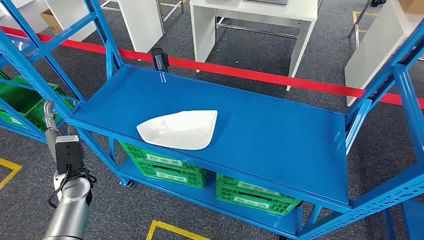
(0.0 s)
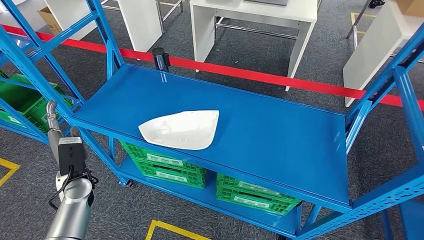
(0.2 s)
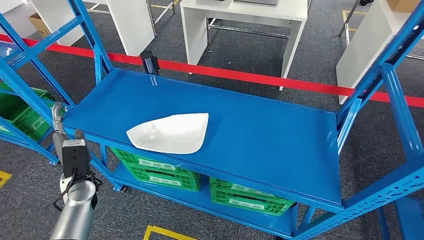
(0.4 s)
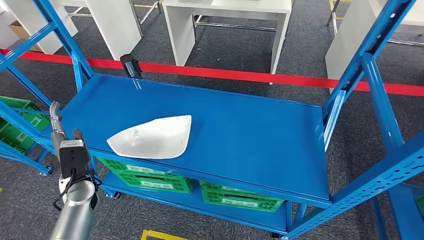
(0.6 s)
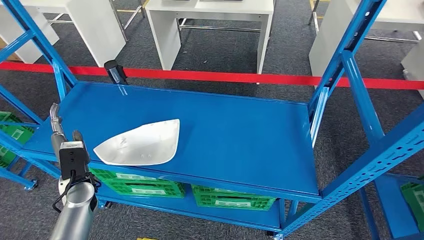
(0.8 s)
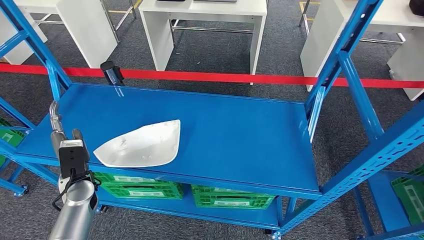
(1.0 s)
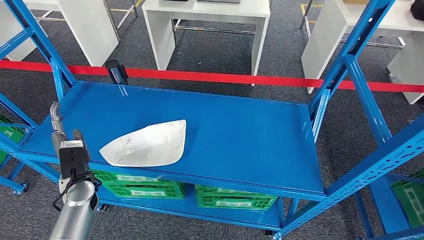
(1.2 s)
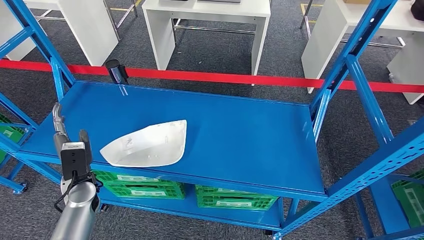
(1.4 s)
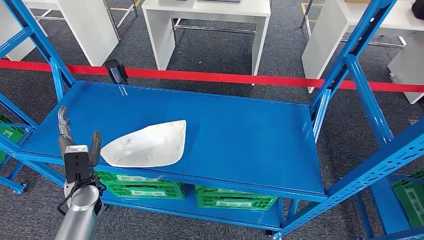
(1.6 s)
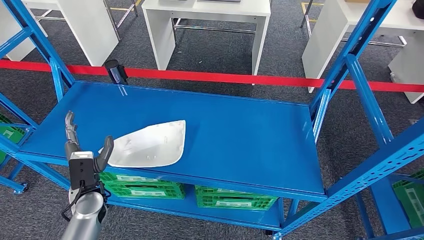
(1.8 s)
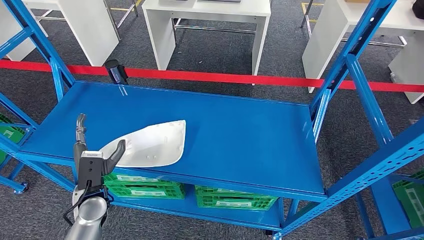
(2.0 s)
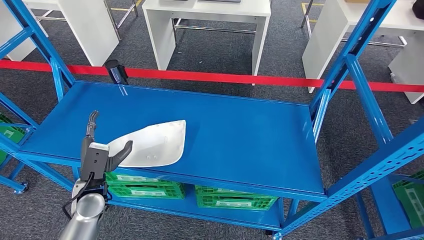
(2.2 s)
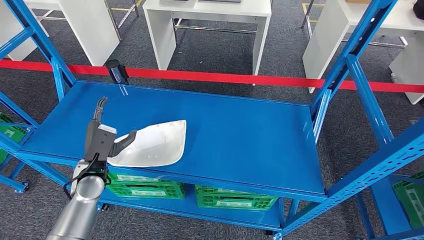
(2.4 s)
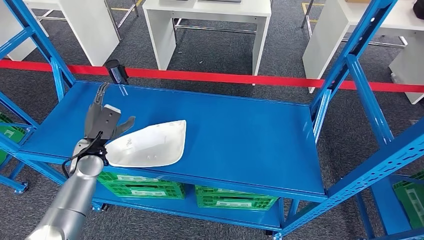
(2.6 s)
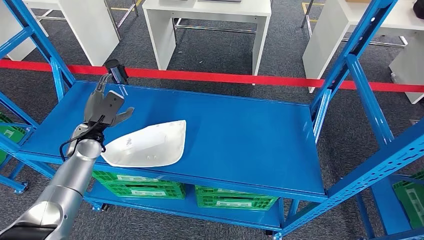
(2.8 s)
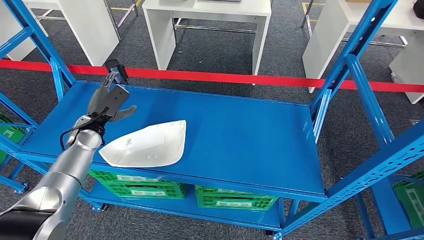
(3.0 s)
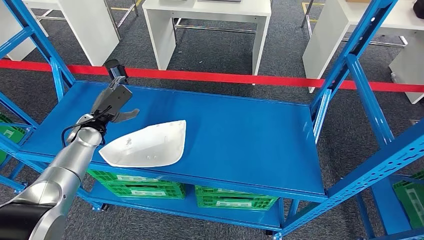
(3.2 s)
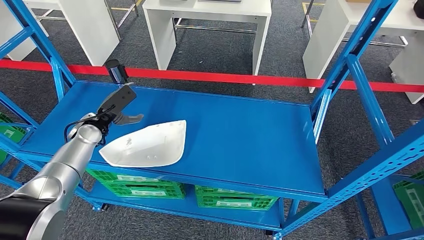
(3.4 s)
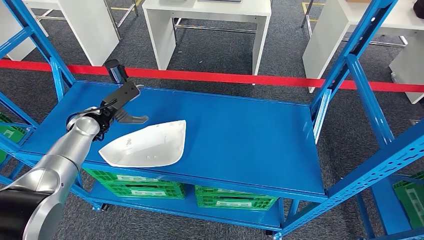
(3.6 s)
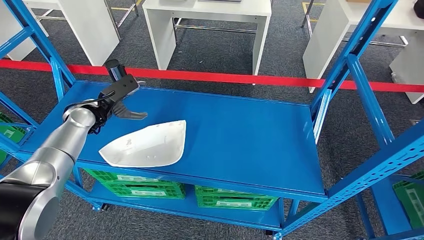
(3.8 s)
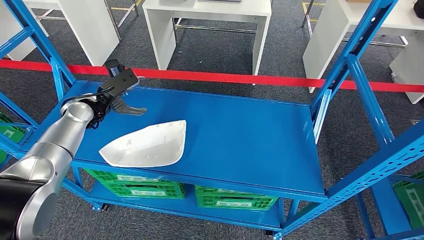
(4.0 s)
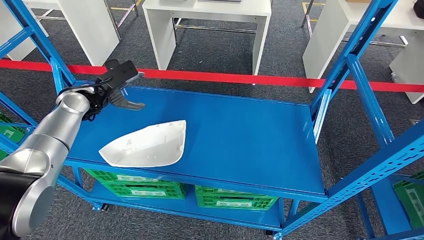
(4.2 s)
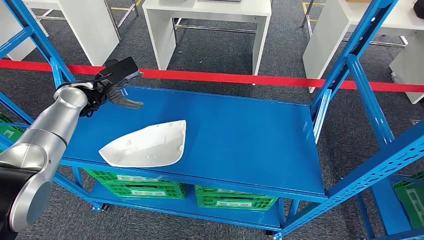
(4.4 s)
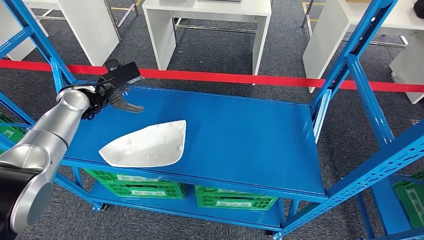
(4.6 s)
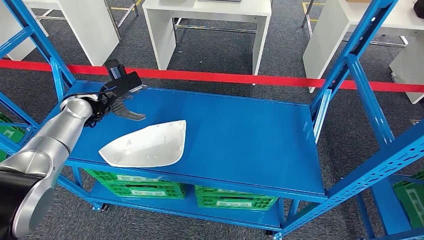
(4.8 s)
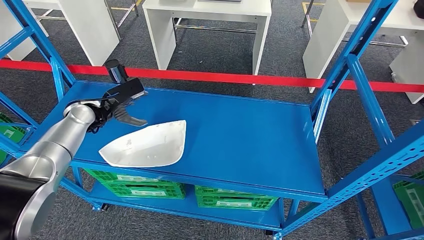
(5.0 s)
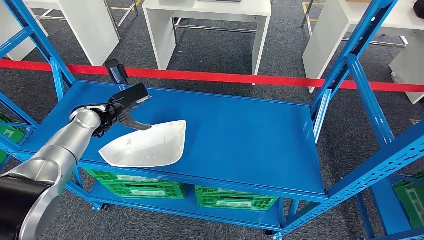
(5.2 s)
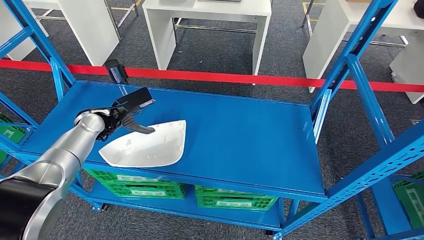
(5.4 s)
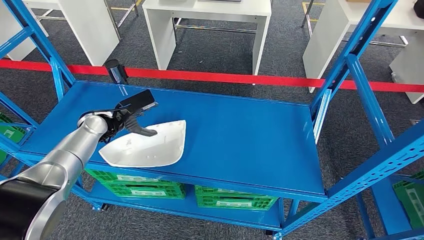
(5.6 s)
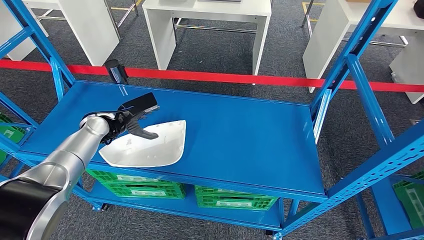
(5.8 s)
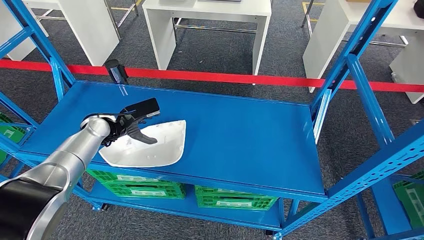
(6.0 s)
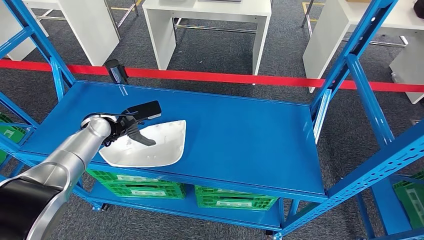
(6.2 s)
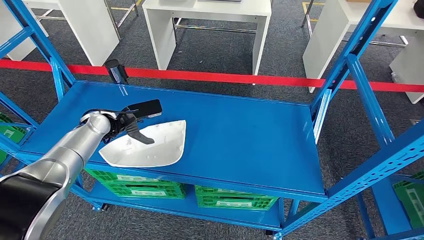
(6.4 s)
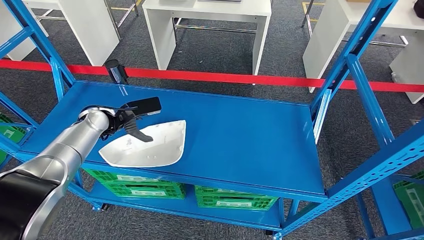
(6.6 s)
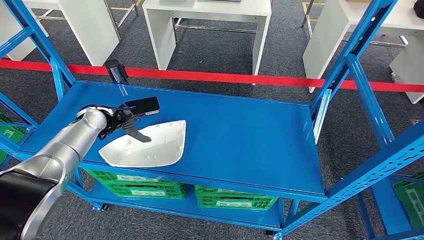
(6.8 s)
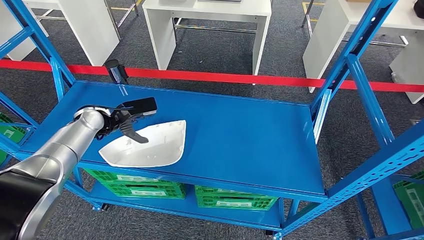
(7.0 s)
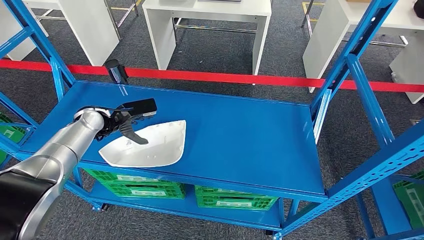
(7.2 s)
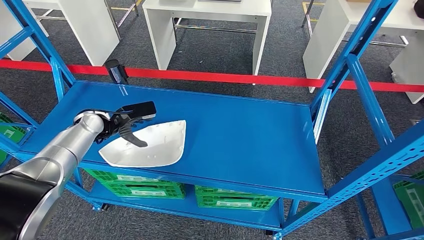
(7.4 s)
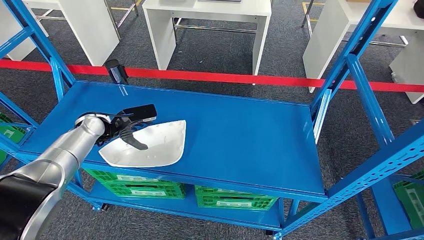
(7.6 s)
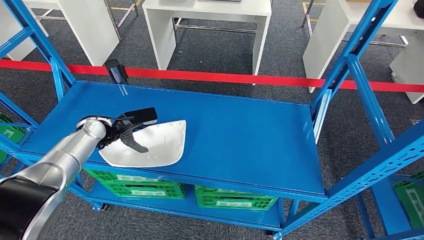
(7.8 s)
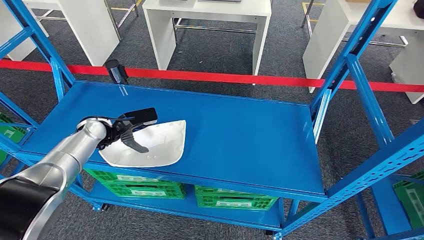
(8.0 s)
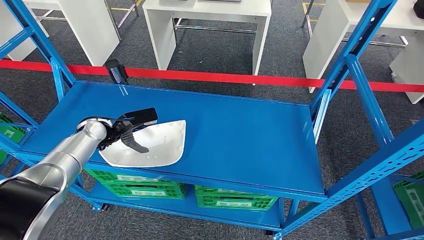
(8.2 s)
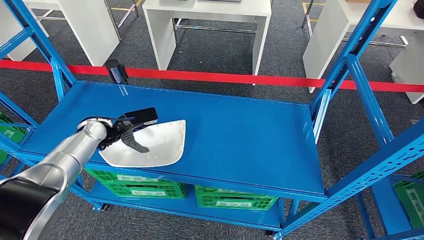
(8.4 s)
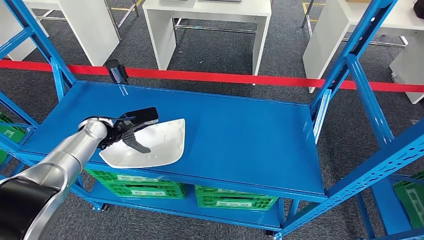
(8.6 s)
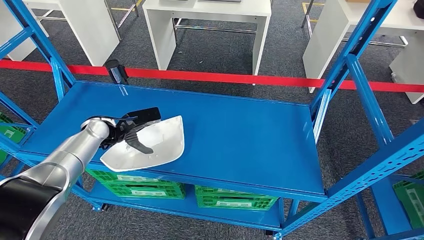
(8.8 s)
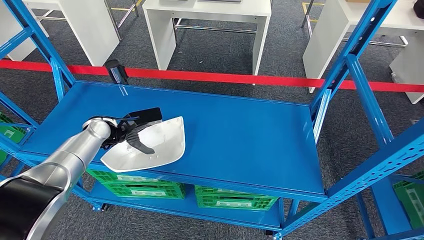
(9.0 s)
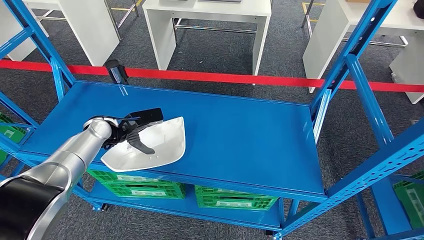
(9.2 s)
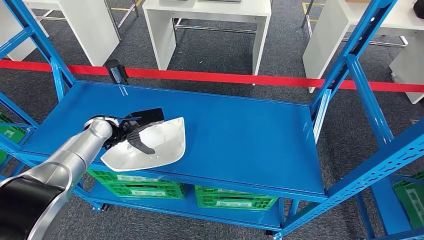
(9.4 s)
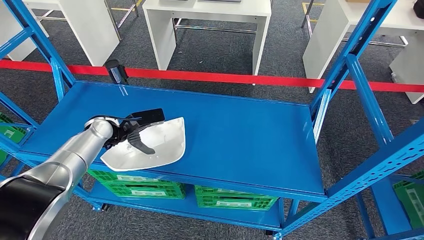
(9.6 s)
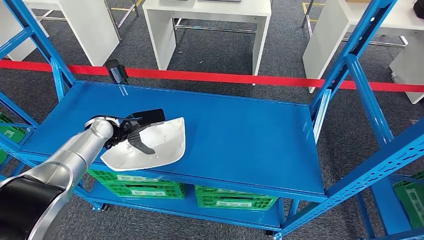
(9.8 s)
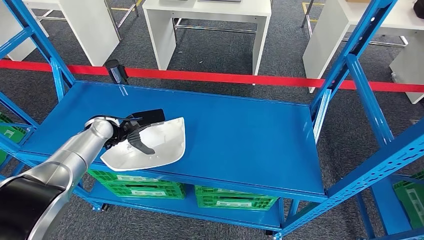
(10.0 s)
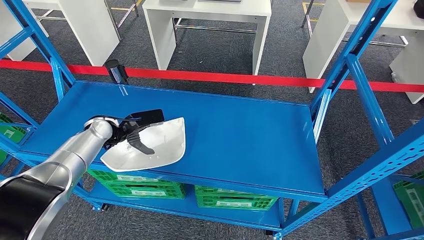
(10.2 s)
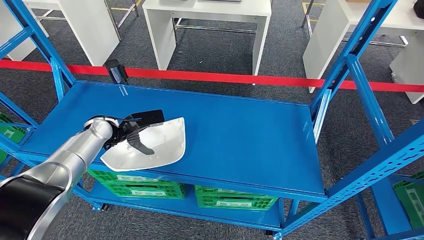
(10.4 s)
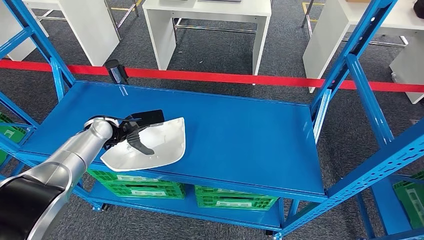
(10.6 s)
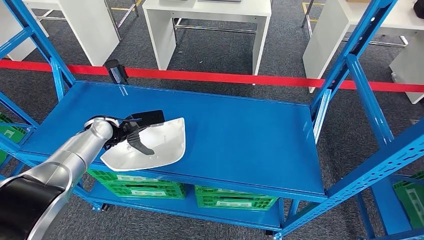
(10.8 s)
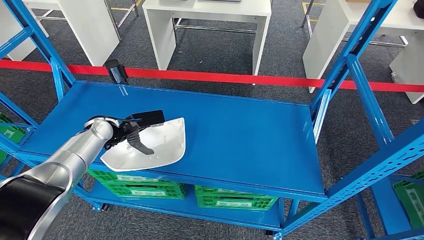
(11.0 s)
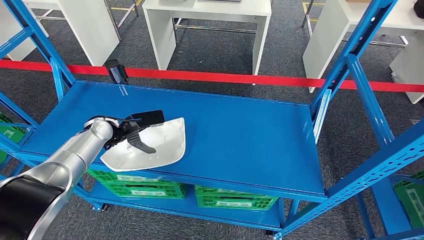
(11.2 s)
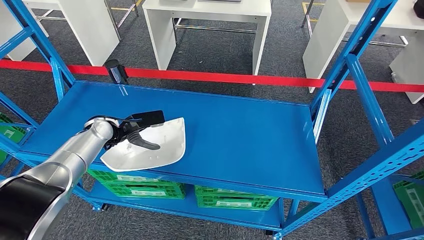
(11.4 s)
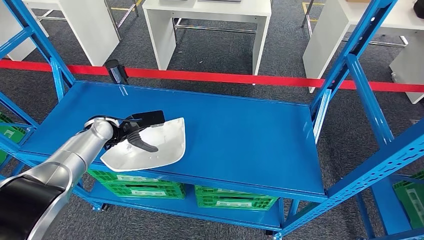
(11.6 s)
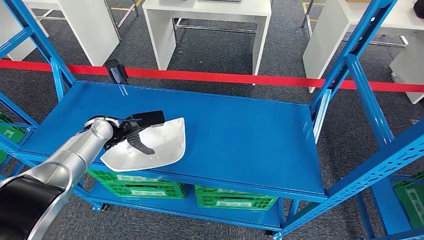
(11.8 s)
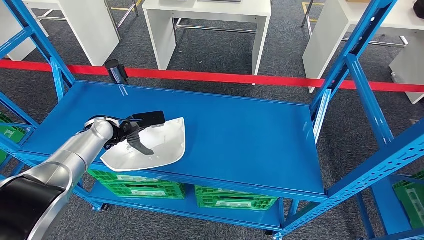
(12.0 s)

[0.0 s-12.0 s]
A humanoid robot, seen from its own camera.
1.6 to 3.0 s: The left hand travels forward and upward by some 15 cm.
3.0 to 4.4 s: The left hand travels upward and forward by approximately 10 cm.
4.4 to 6.0 s: The left hand heads downward, covering approximately 10 cm.
6.0 to 9.0 s: The hands move only a little.
9.0 to 10.4 s: Both hands stay about where they are.
10.4 to 12.0 s: Neither hand changes place.

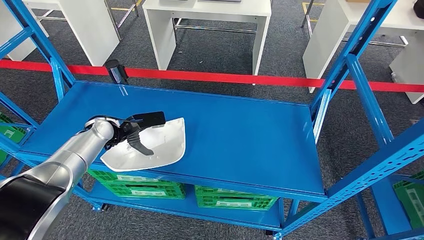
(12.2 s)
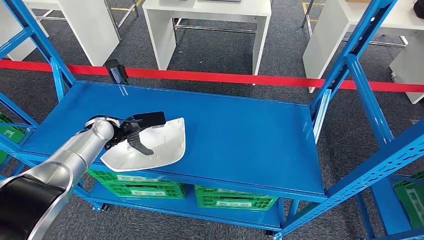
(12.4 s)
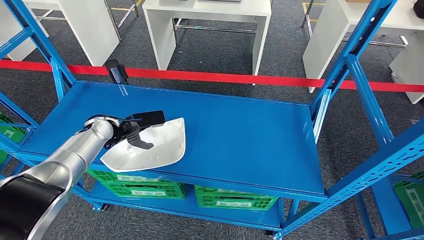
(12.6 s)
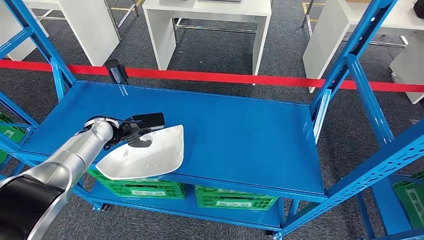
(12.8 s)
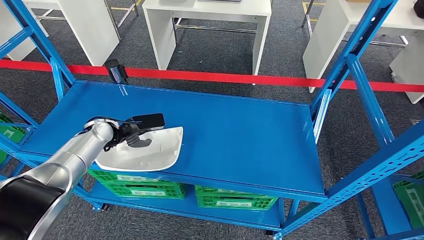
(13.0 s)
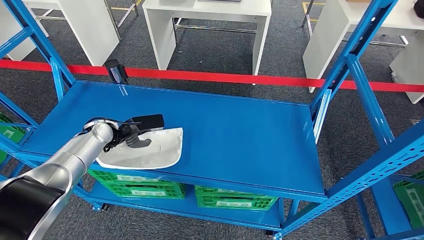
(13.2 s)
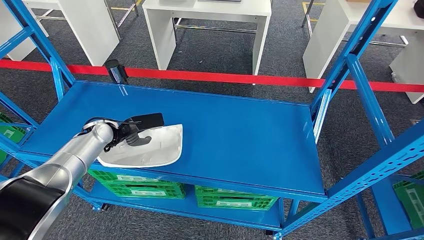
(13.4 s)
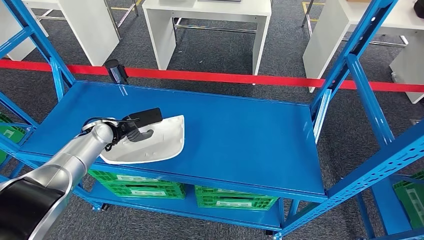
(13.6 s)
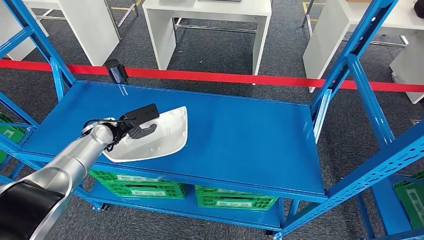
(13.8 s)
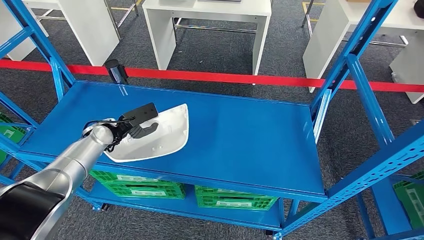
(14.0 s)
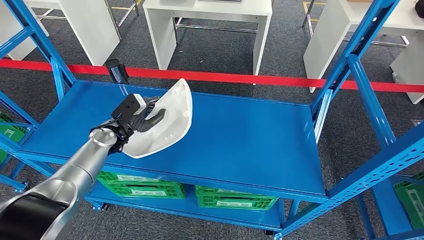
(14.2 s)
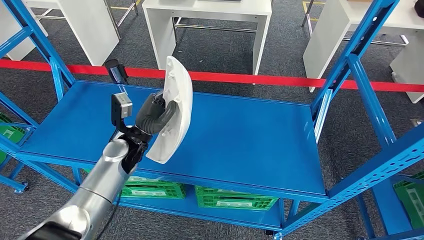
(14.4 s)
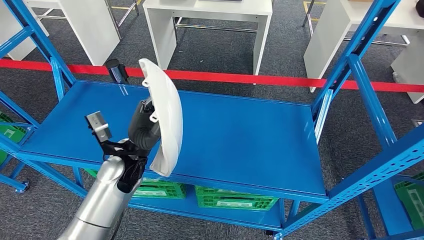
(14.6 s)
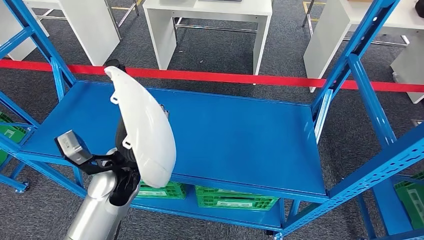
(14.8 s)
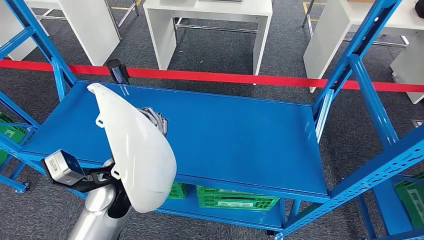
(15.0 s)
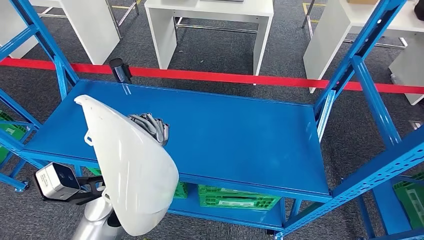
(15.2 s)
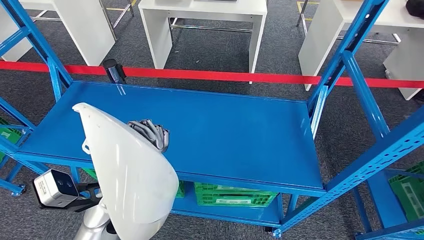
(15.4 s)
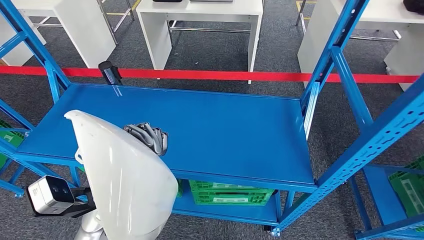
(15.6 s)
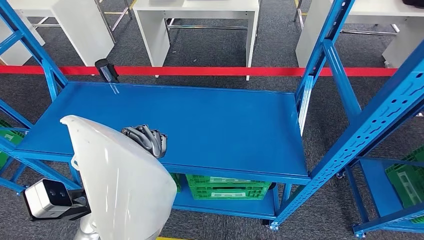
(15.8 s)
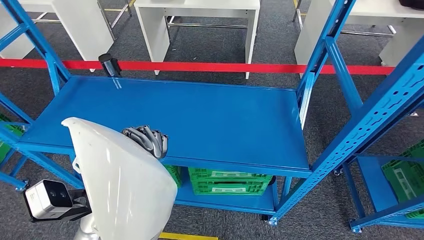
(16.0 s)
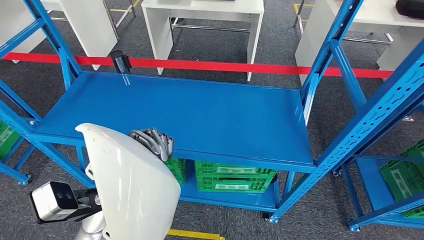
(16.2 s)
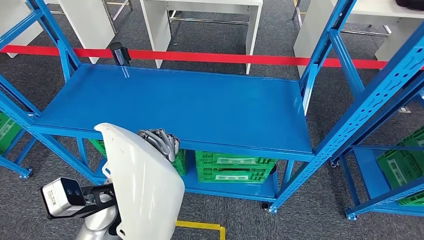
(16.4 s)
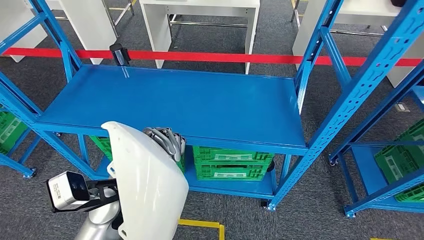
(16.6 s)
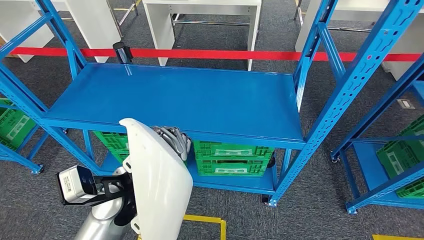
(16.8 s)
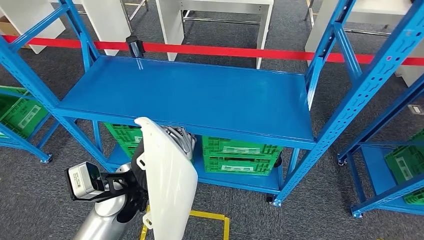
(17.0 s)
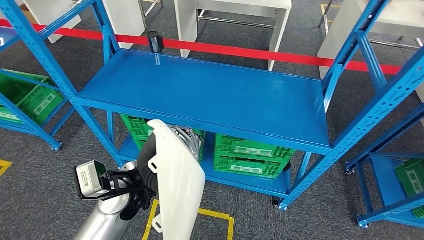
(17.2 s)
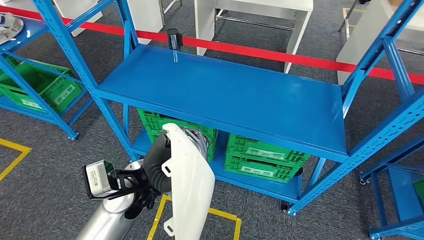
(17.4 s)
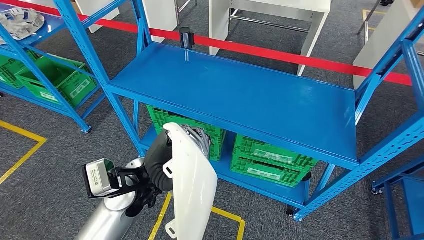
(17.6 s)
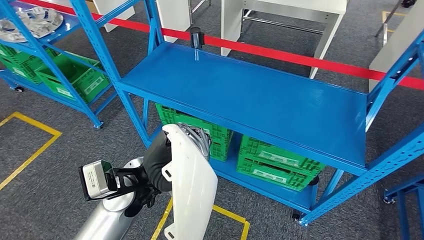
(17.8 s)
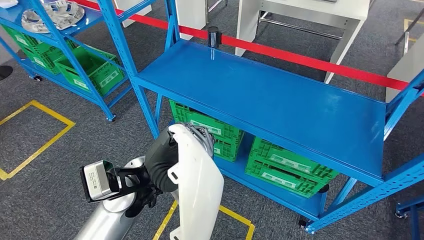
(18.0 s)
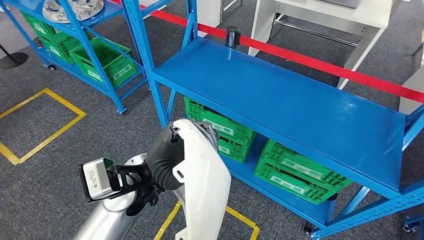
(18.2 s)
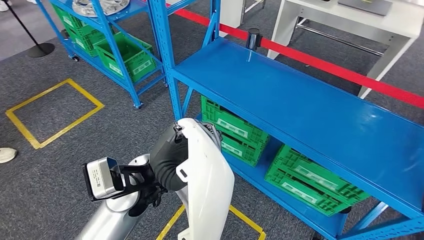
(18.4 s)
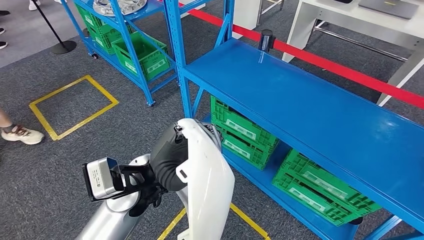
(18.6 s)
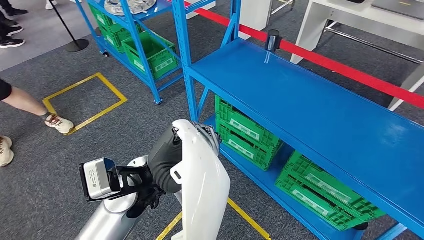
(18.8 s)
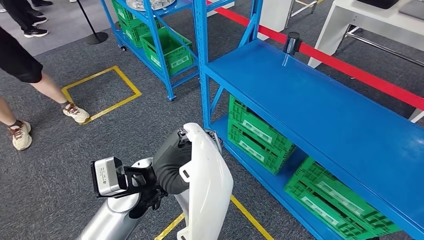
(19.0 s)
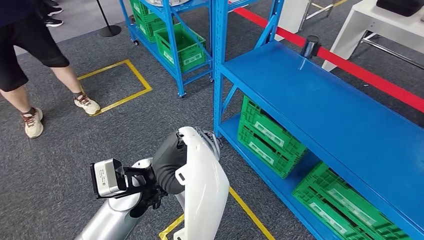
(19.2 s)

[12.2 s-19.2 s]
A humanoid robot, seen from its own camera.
Step, 12.2 to 14.2 s: Pick up the small component from the shelf.
12.2 to 13.6 s: The hands stay close to where they were, moving slightly.
